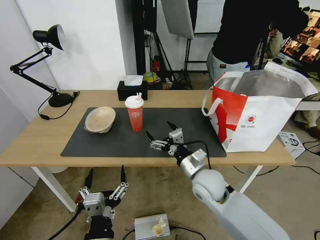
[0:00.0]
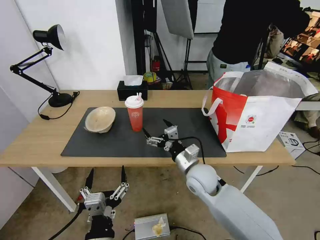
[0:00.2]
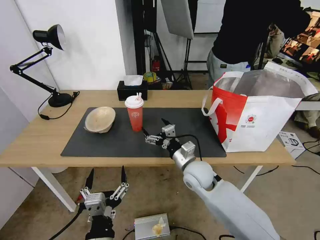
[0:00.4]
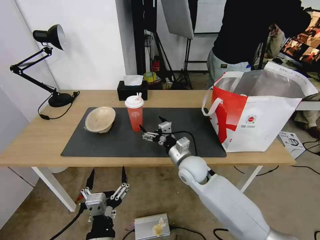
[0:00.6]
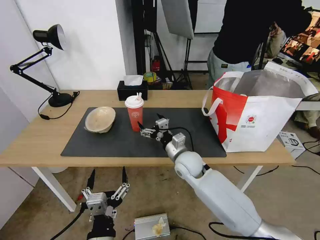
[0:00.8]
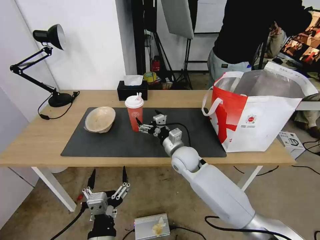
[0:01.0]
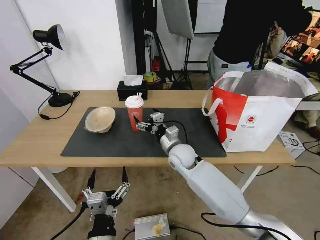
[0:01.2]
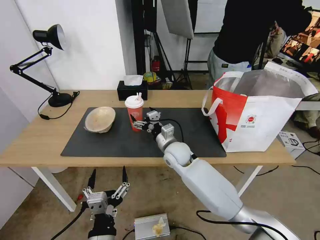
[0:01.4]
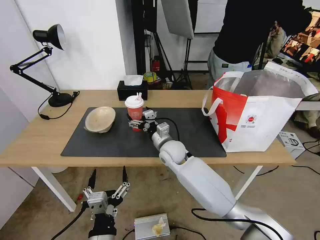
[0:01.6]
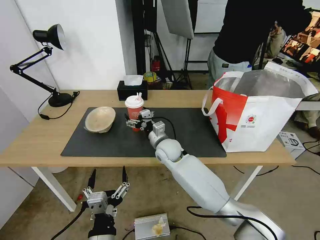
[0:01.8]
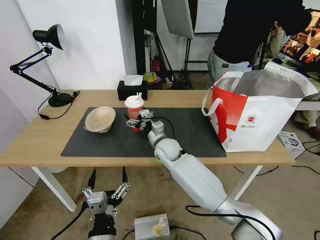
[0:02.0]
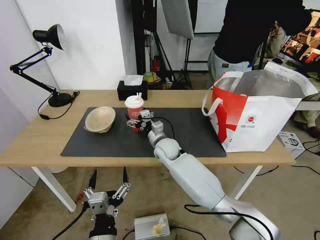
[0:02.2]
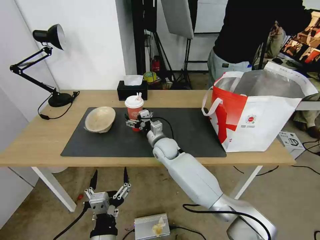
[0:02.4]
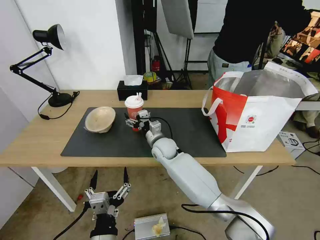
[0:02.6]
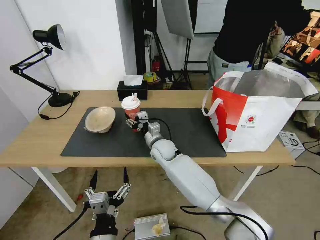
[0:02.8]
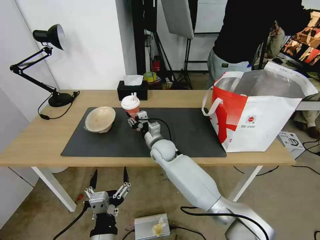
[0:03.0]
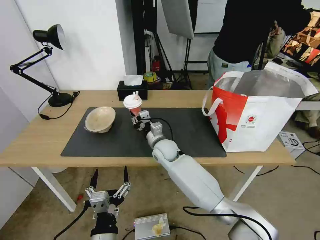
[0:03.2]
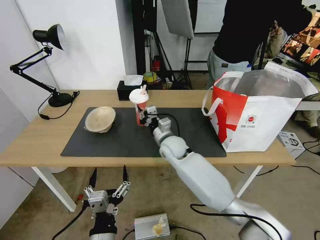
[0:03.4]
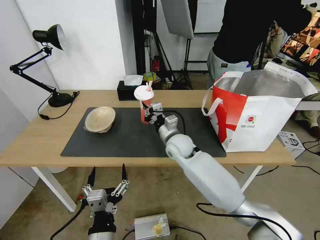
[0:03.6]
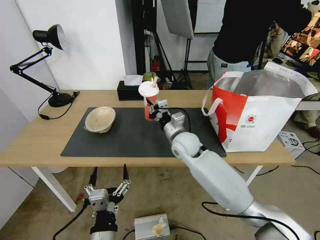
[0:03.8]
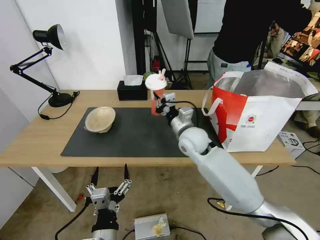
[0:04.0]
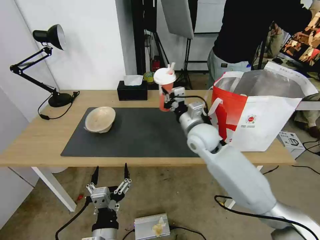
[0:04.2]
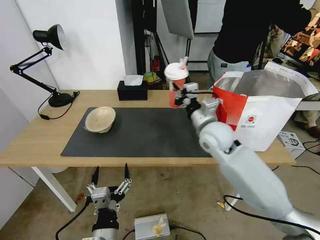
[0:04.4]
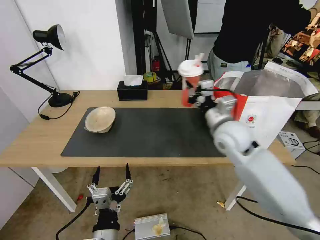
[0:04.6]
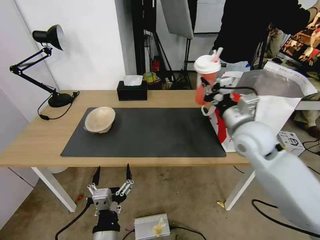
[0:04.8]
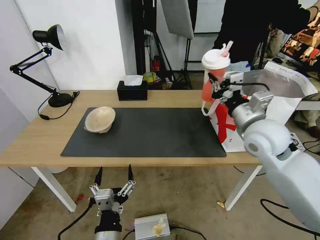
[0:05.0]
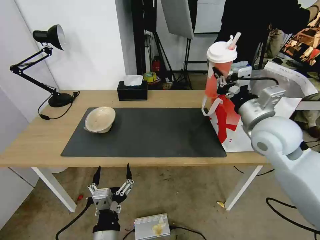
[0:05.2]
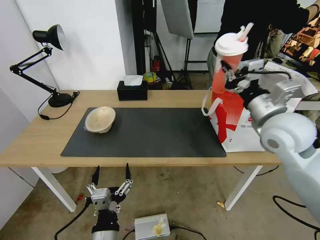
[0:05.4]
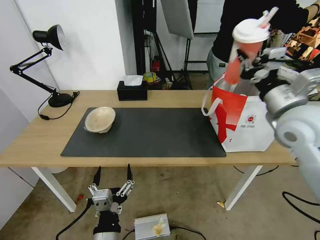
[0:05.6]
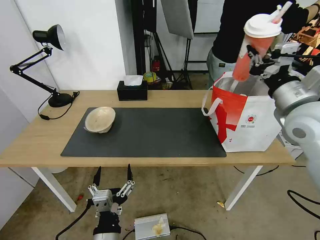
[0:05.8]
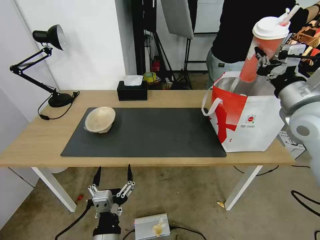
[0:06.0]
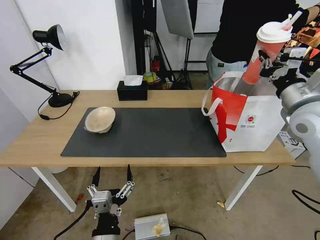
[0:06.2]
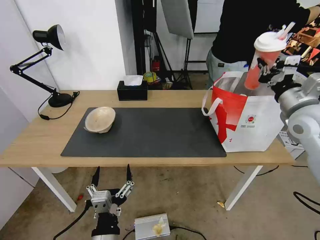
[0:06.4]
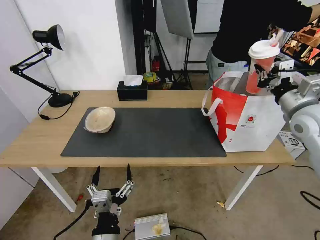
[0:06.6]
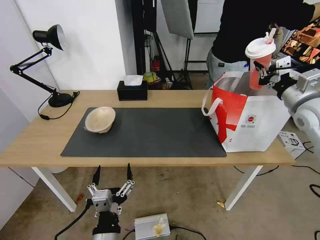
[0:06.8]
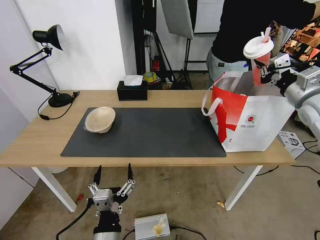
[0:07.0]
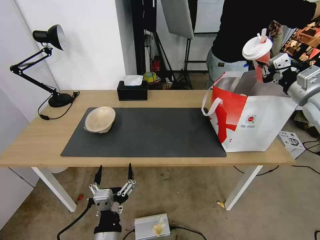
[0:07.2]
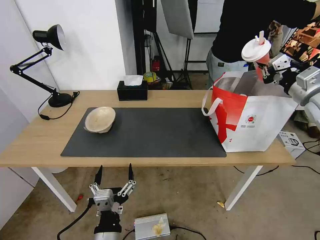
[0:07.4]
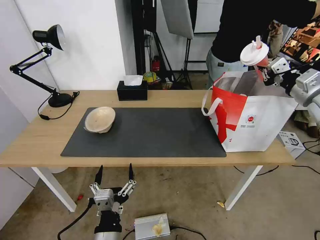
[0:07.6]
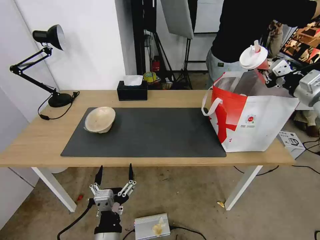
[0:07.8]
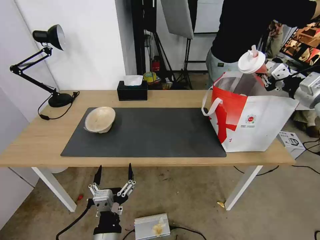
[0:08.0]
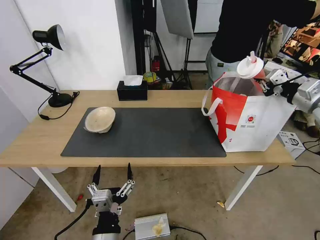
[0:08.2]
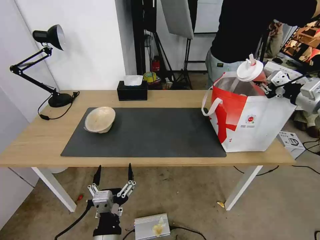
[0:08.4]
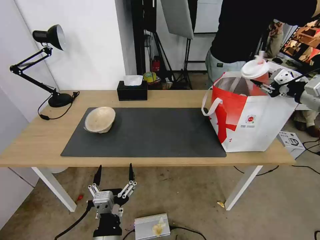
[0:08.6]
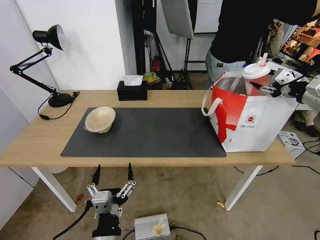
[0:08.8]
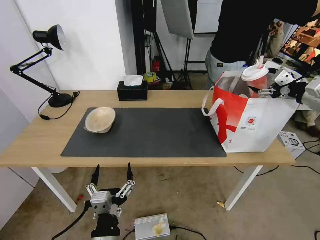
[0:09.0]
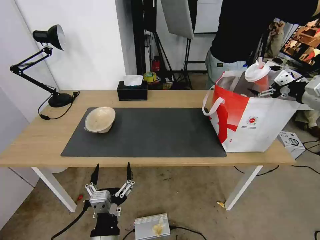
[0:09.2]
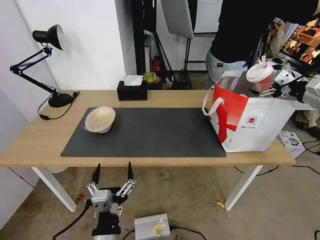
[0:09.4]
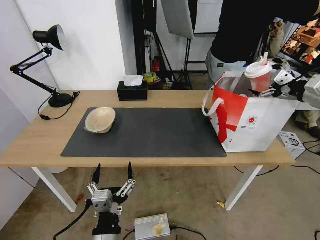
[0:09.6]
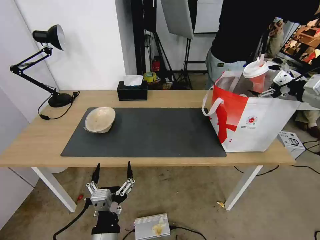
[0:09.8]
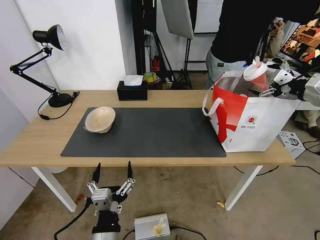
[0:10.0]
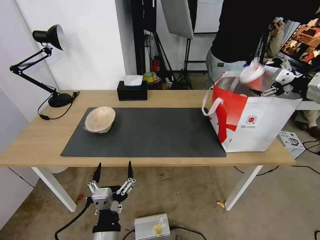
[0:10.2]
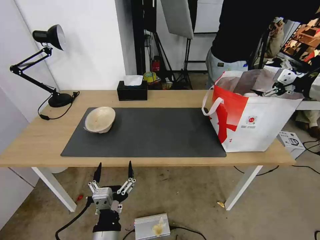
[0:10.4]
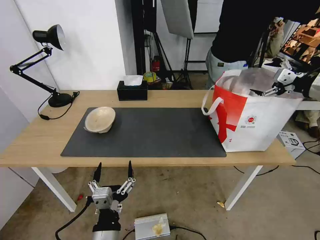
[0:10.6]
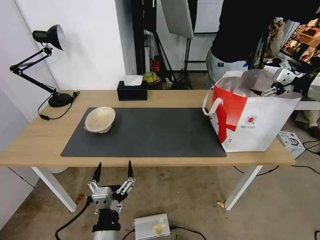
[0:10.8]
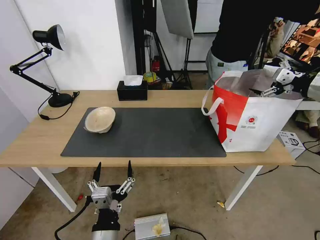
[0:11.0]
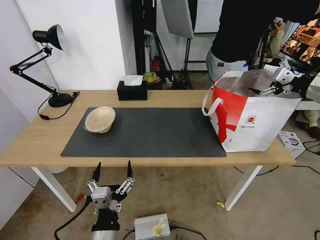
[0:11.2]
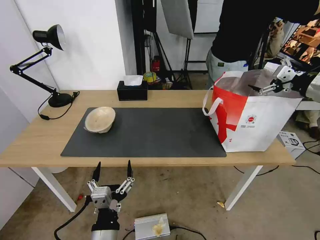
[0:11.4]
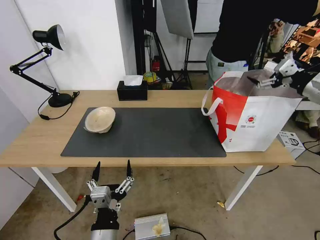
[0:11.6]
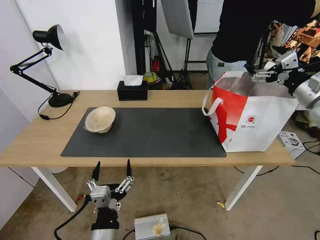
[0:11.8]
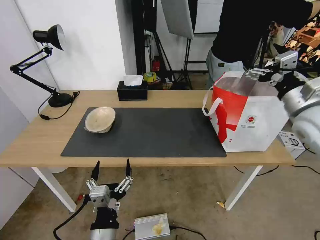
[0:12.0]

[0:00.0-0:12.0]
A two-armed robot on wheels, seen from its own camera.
Task of the whole recording: Pick up the trash from the table and place it into the takeout bag.
0:00.0 to 0:01.6: The right gripper moves forward and to the left, some 15 cm.
0:01.6 to 0:03.0: The right gripper closes up.
0:03.0 to 0:04.4: The right gripper travels to the right and upward by some 20 cm, and closes up.
0:04.4 to 0:06.0: The right gripper goes some 20 cm to the right and upward.
0:06.0 to 0:07.6: The right gripper is displaced to the right and forward by about 15 cm.
0:07.6 to 0:09.0: The right gripper opens up.
0:09.0 to 0:10.4: There are only small adjustments of the grippers.
0:10.4 to 0:12.0: The right gripper moves to the left and downward, about 10 cm.

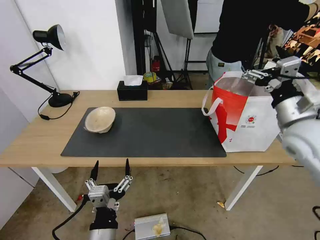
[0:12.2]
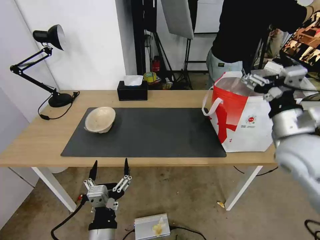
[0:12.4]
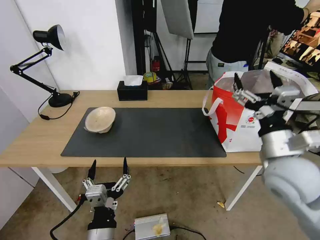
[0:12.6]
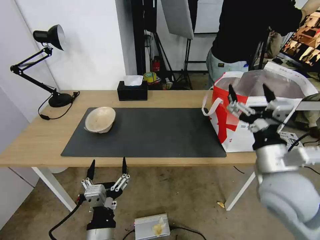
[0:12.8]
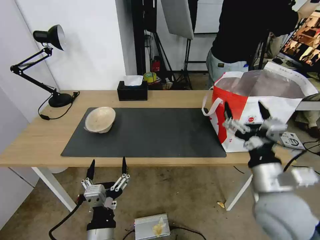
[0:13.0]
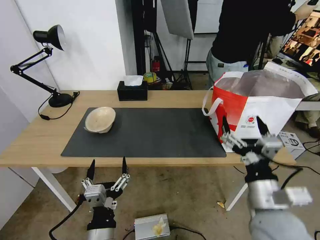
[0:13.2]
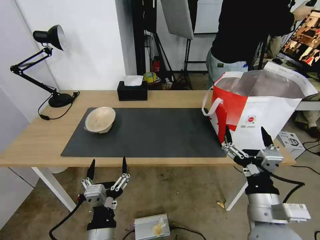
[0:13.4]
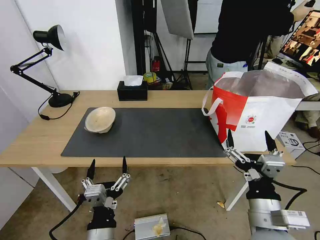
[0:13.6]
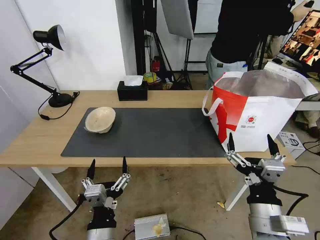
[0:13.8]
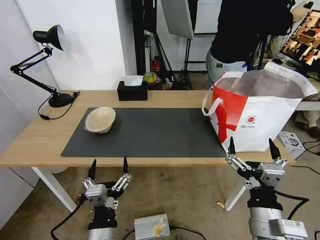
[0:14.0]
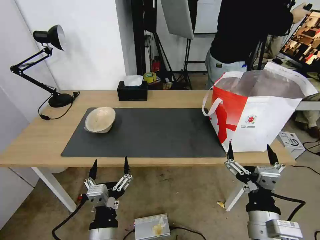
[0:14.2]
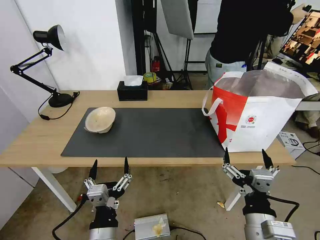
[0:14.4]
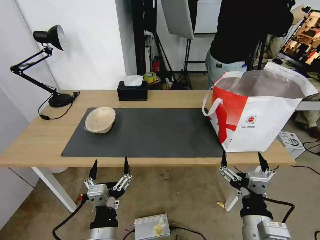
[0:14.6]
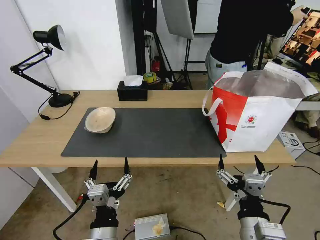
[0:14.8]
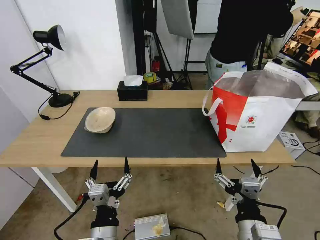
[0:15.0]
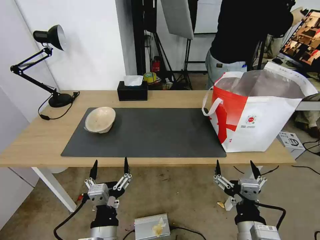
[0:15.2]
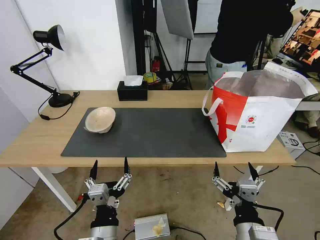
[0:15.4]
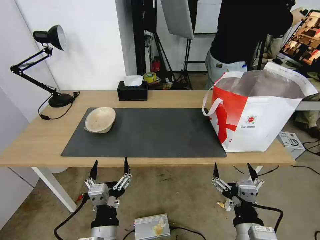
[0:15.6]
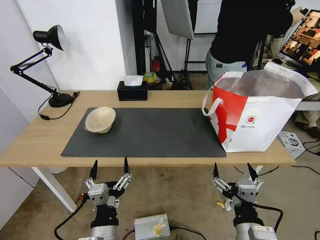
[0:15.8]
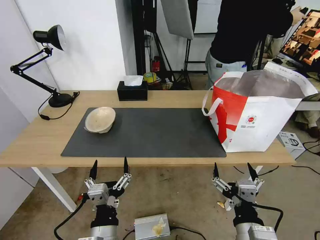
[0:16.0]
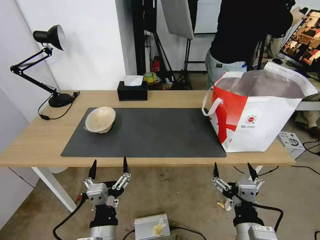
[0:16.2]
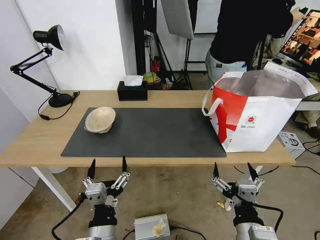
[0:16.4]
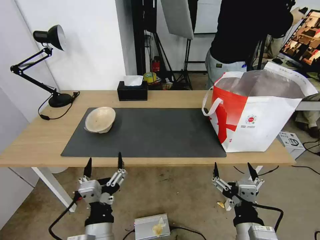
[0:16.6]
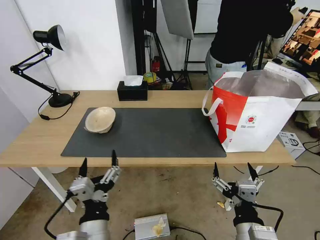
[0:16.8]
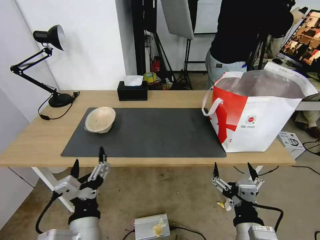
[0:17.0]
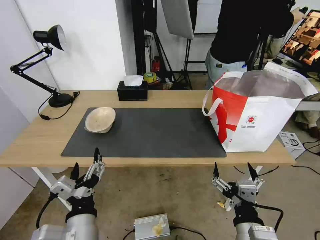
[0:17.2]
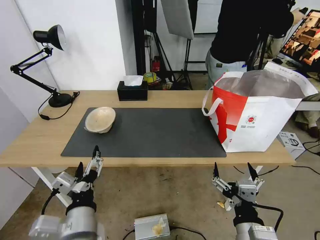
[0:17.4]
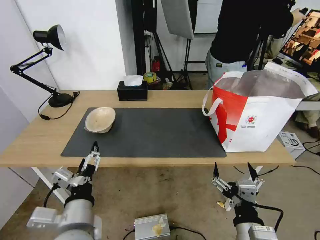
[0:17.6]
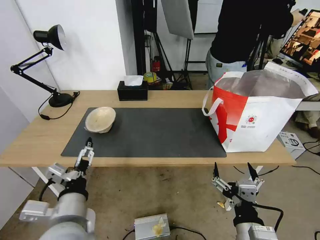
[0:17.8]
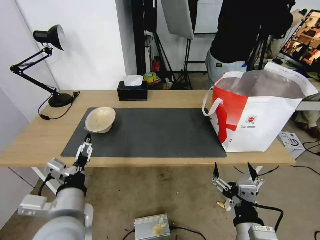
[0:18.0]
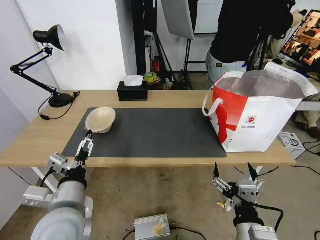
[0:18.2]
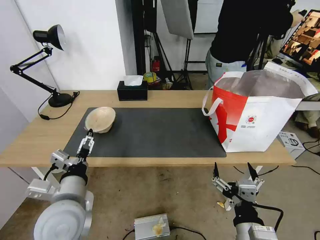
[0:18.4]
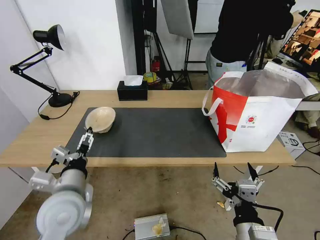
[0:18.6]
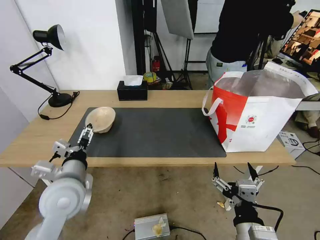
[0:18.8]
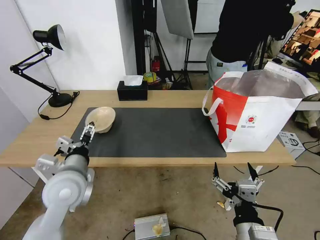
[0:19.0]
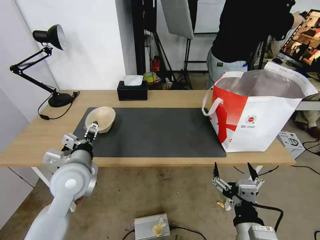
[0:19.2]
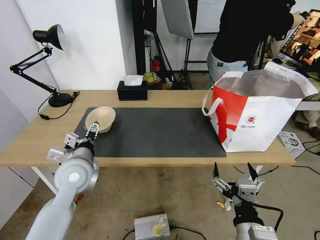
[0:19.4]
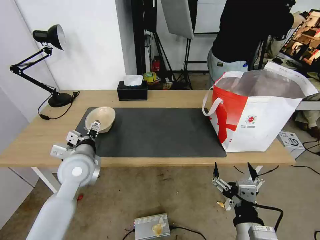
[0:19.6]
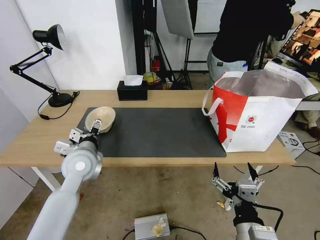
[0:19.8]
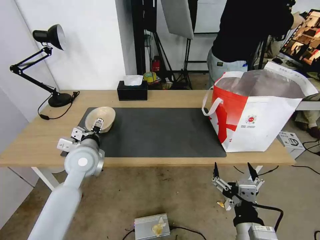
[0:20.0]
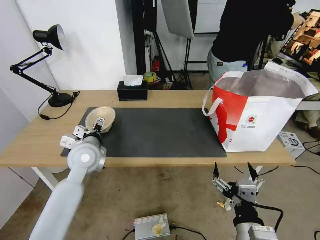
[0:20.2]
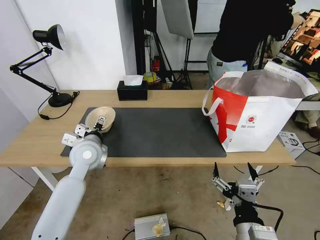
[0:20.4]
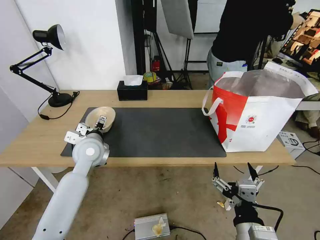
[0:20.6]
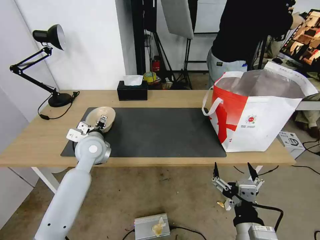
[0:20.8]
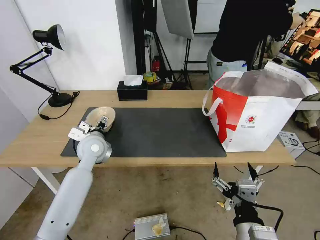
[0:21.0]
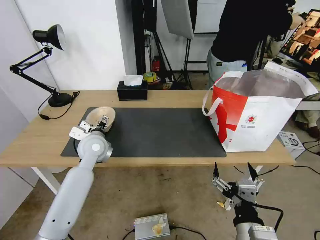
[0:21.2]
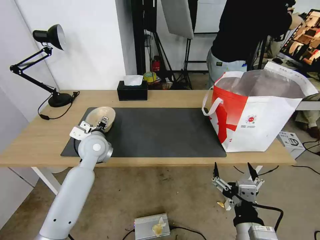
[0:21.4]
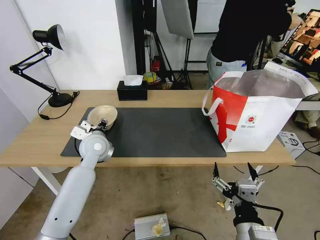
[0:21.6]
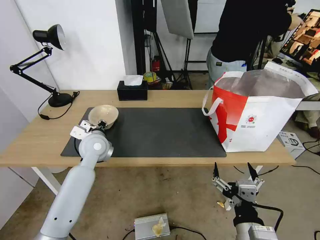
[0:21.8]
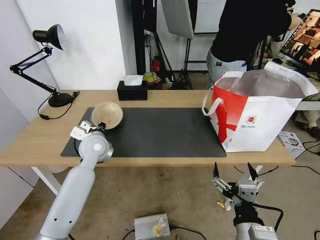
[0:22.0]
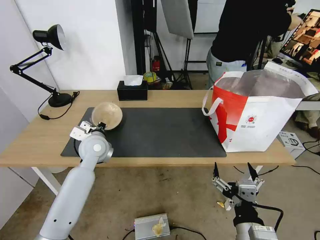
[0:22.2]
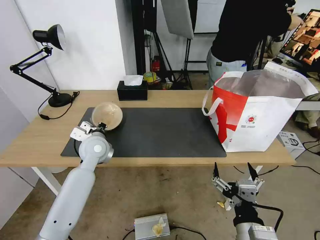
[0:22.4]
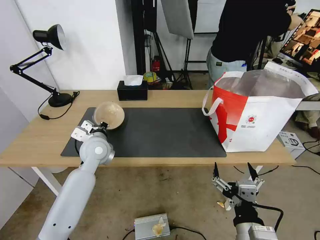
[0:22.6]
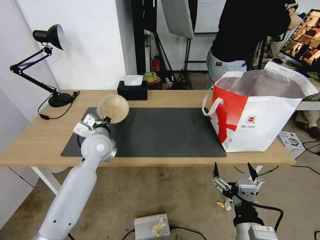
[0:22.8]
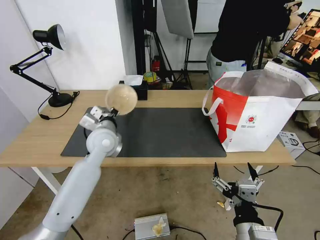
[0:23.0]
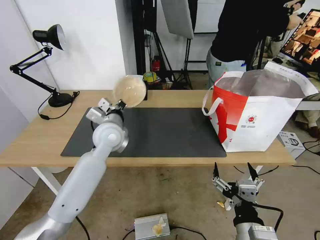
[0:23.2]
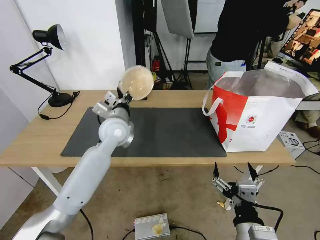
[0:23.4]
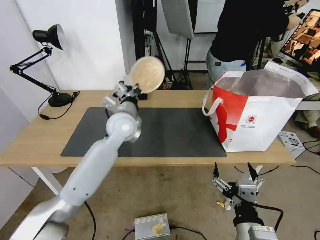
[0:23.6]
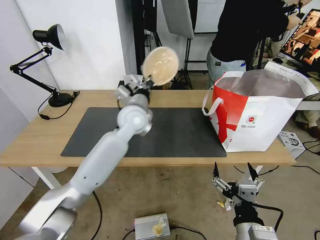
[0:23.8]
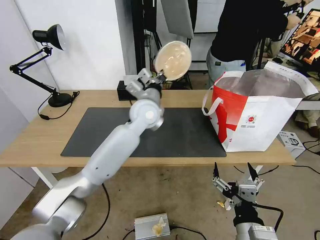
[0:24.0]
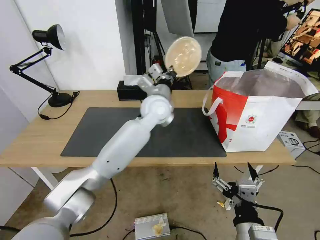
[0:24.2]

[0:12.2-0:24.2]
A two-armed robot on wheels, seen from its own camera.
Task of the whole recording: Pick up the trash from the table and place it into the takeout bag.
0:12.2 to 0:13.8: The right gripper goes some 30 cm backward, downward and to the left.
0:13.8 to 0:15.2: The grippers make only small movements.
0:15.2 to 0:16.6: Both grippers stay put.
0:16.6 to 0:18.2: The left gripper travels to the left, upward and forward by roughly 15 cm.
0:18.2 to 0:19.8: The left gripper travels forward by some 15 cm.
0:19.8 to 0:21.2: The left gripper goes some 5 cm forward.
0:21.2 to 0:22.6: The left gripper closes.
0:22.6 to 0:24.2: The left gripper moves to the right, upward and forward, approximately 25 cm.
